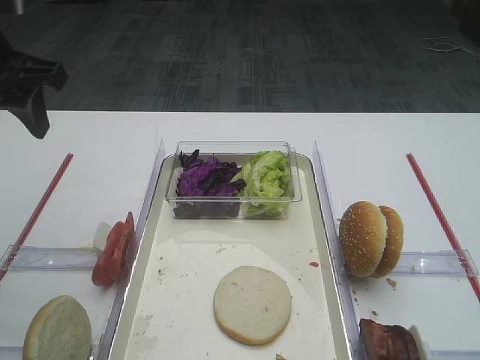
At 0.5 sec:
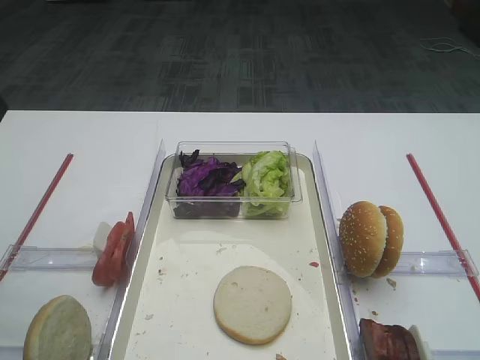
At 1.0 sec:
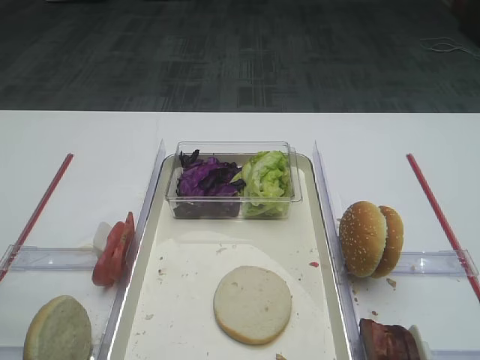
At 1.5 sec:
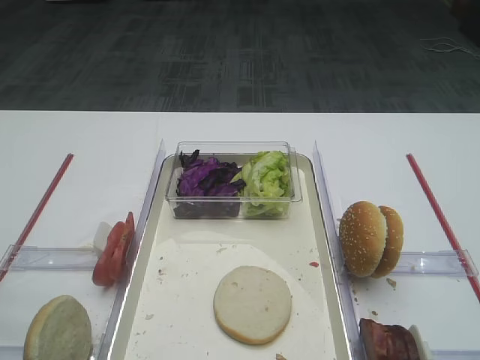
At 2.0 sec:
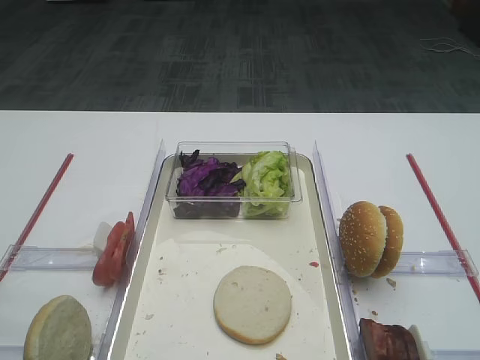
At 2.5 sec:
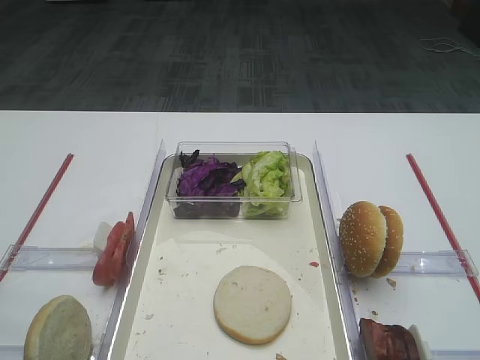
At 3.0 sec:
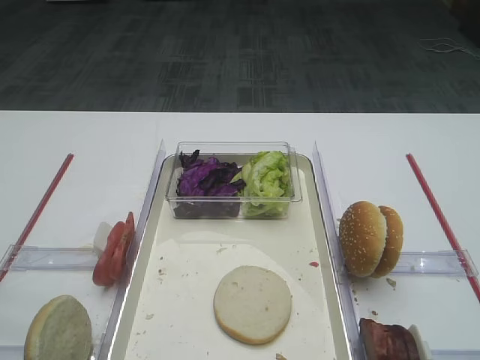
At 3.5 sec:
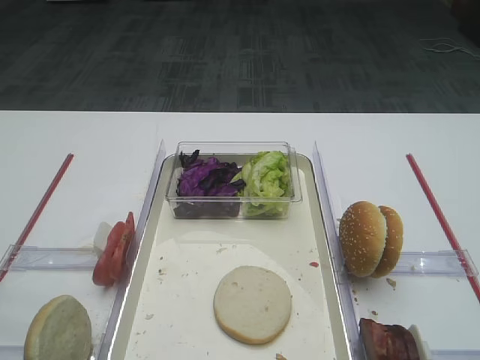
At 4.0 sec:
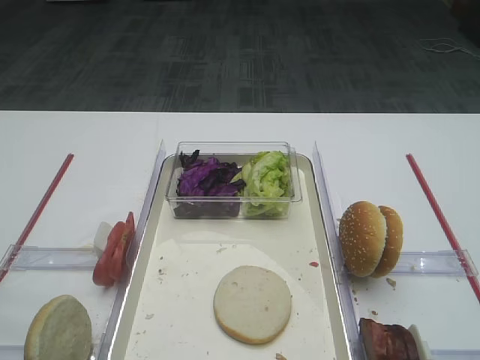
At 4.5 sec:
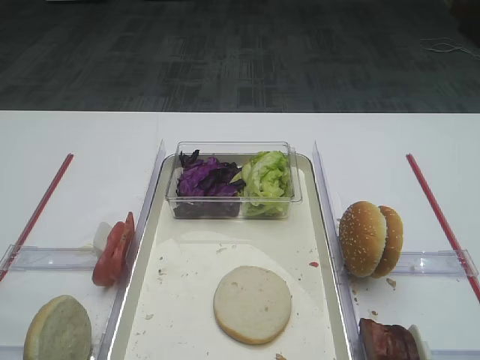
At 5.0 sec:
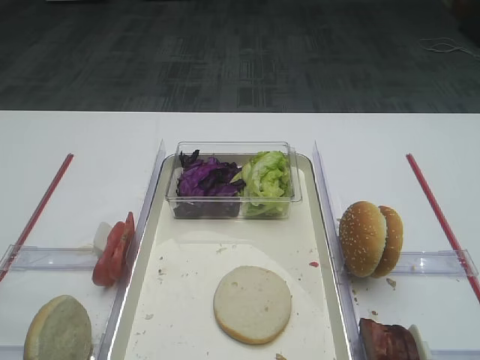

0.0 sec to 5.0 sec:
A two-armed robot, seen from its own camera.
0.0 sec to 2.5 sec: The left gripper is displaced backward by roughly 30 cm.

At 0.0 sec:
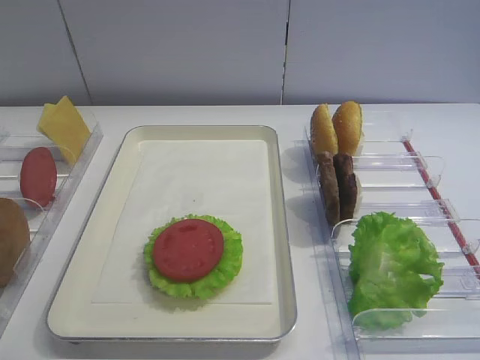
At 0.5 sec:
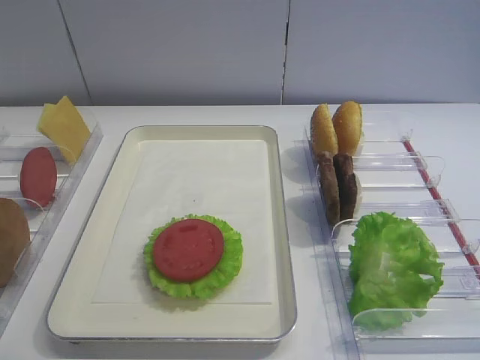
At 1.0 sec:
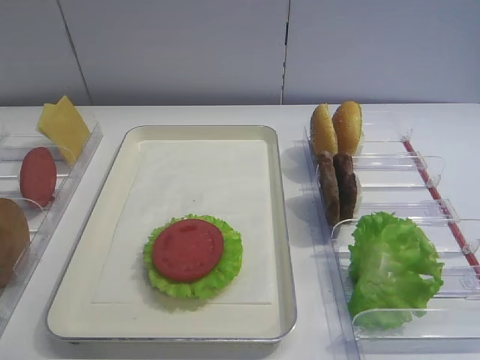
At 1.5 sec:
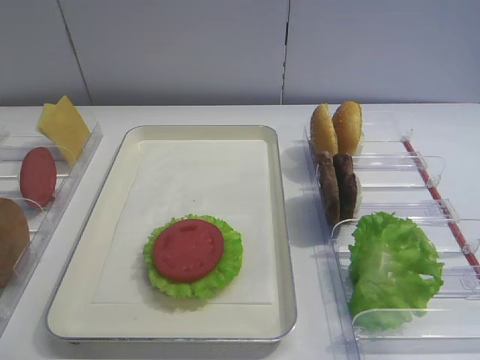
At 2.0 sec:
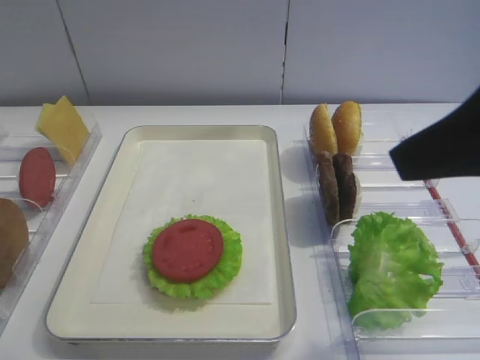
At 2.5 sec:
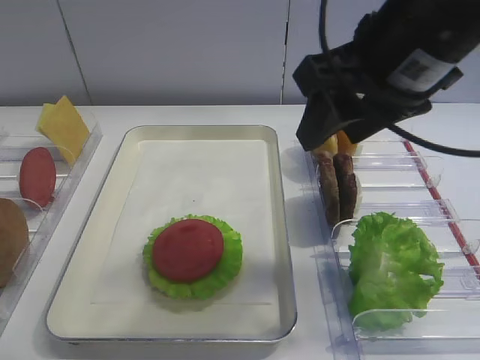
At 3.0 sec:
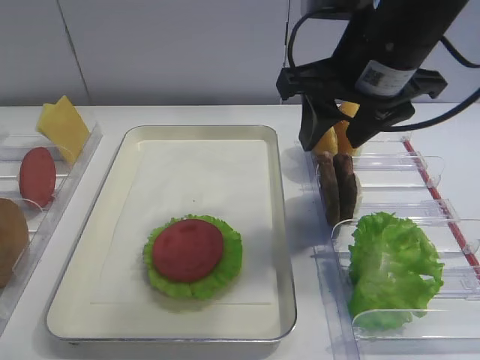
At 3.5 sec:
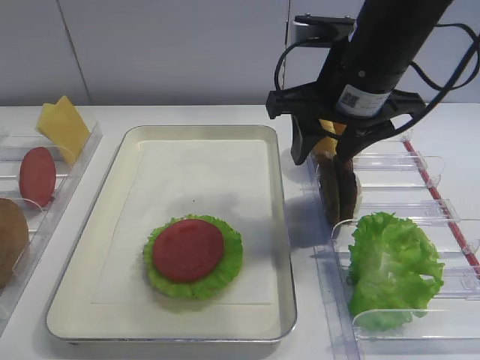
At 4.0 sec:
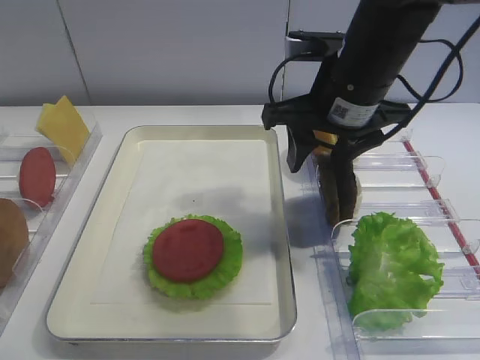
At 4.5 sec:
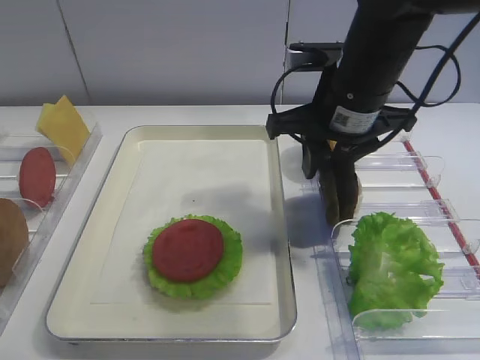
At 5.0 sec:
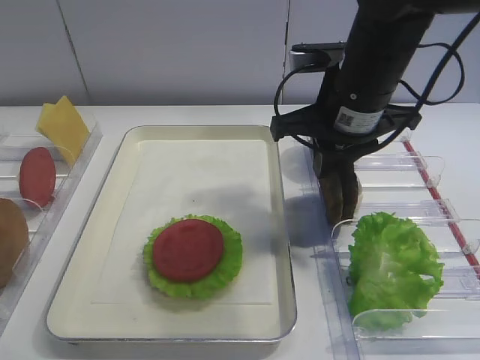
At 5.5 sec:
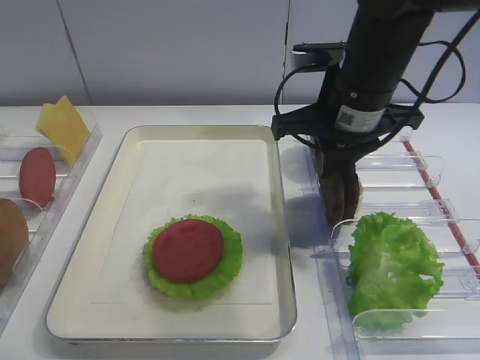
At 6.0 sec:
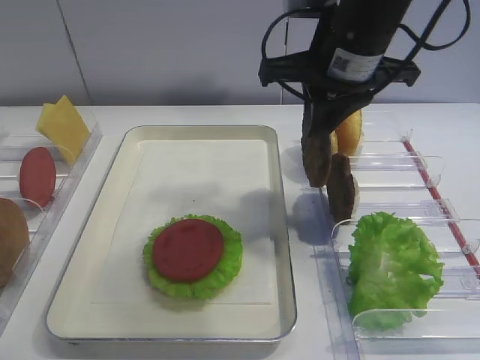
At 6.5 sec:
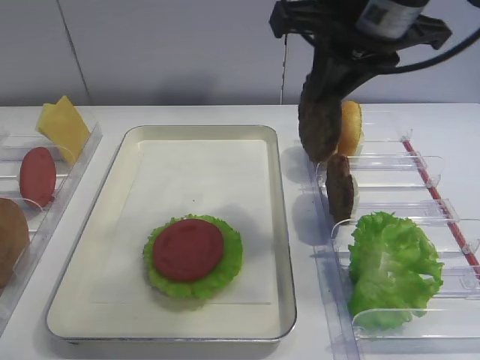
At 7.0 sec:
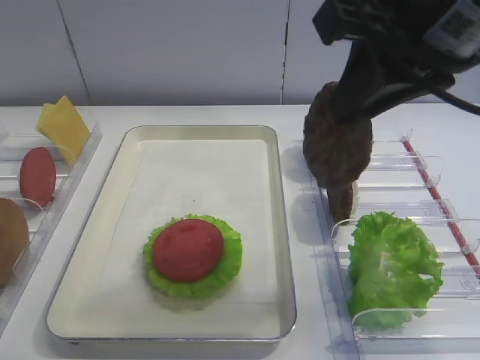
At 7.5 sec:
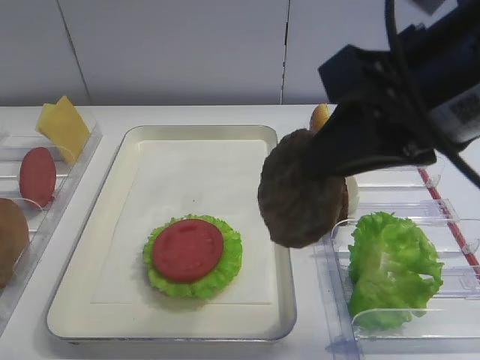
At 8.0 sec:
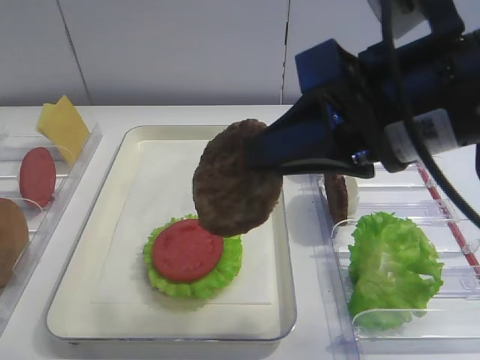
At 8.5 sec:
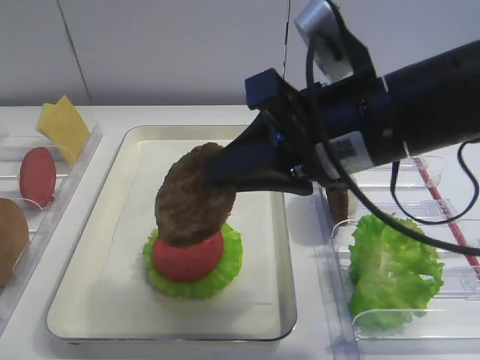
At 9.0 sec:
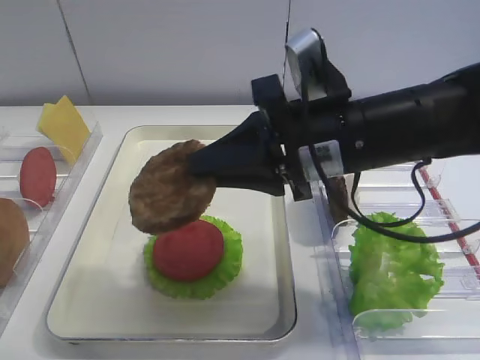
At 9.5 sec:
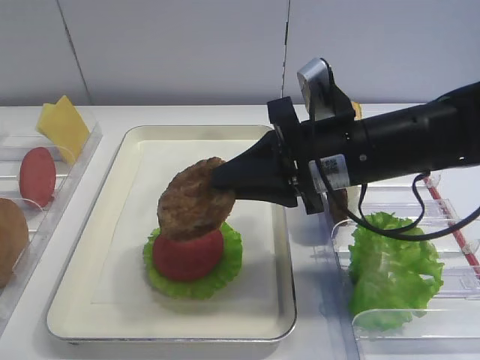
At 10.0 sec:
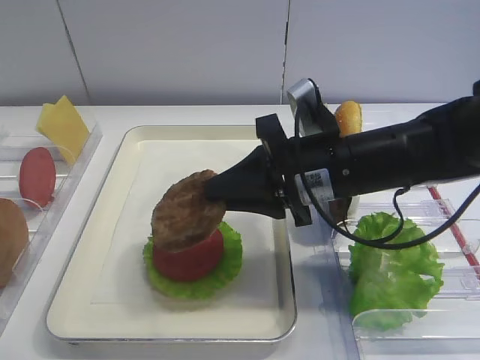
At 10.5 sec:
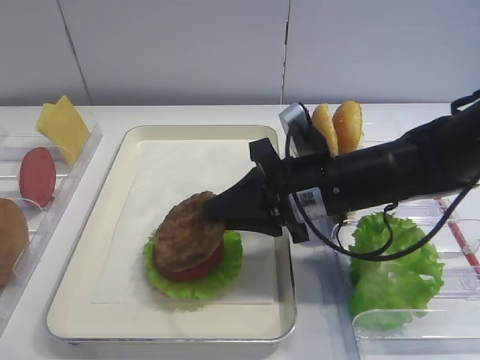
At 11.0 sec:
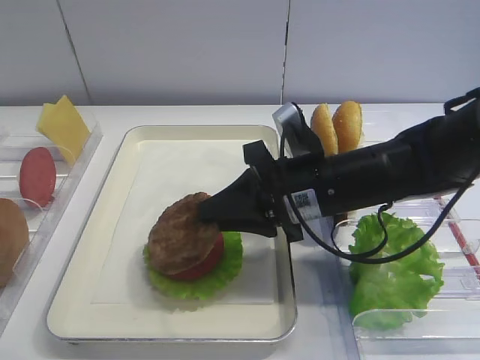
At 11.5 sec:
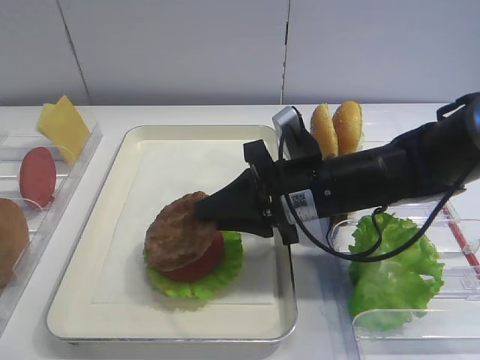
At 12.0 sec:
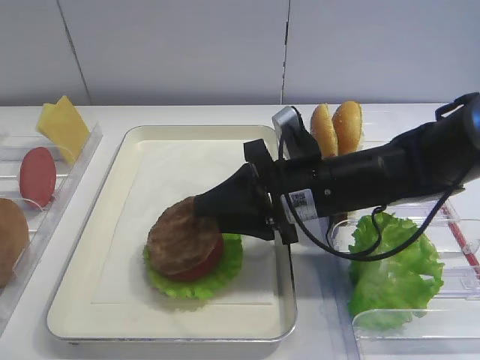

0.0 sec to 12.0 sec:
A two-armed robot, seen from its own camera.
Step, 0.0 sec to 6.0 sec: Pick up the cutlet with the right gripper.
2.0 sec to 4.0 sec: The right gripper goes roughly 20 cm forward, downward and to the left.
4.0 sec to 6.0 sec: The right gripper closes up.
6.0 sec to 8.0 sec: The right gripper travels backward by roughly 15 cm.
8.0 sec to 10.0 sec: The right gripper is displaced downward and forward by about 15 cm.
10.0 sec to 12.0 sec: The right gripper opens its fingers.

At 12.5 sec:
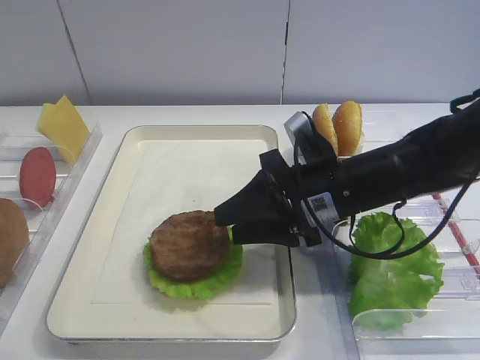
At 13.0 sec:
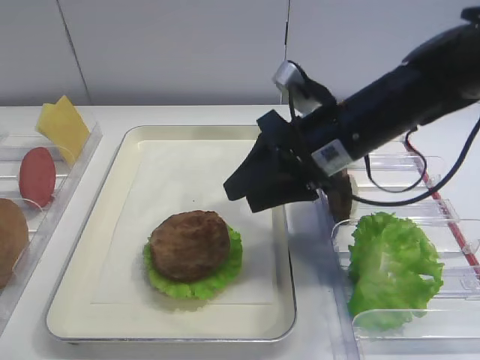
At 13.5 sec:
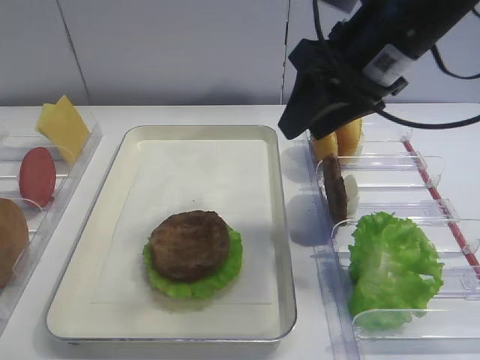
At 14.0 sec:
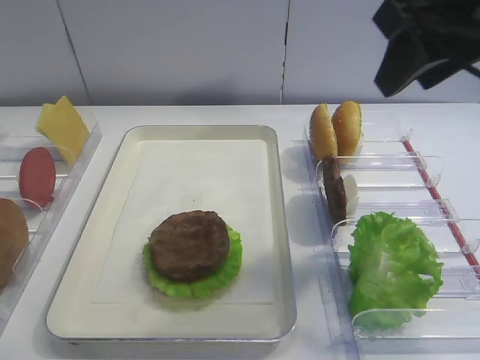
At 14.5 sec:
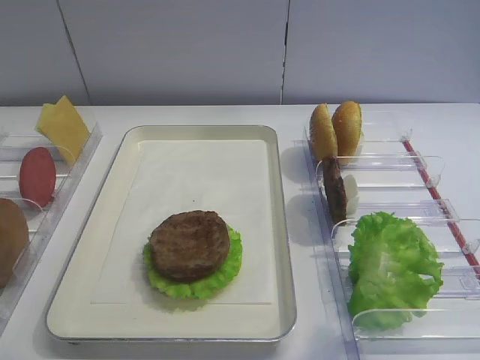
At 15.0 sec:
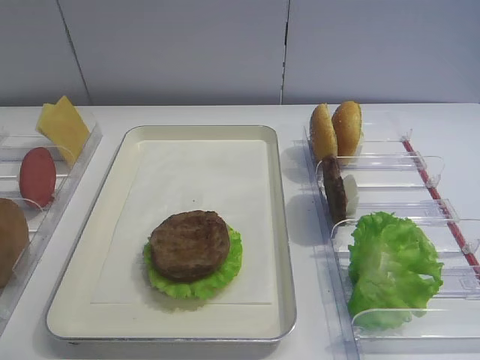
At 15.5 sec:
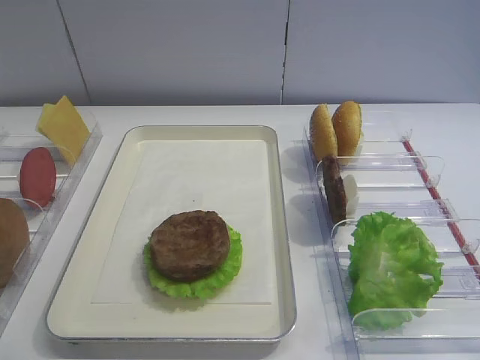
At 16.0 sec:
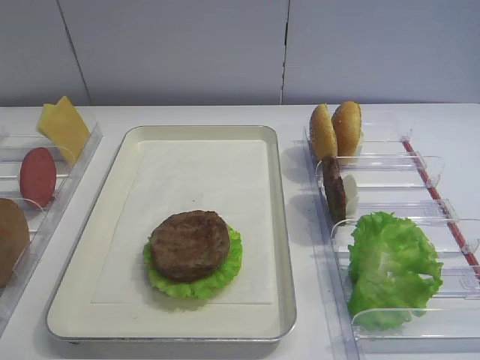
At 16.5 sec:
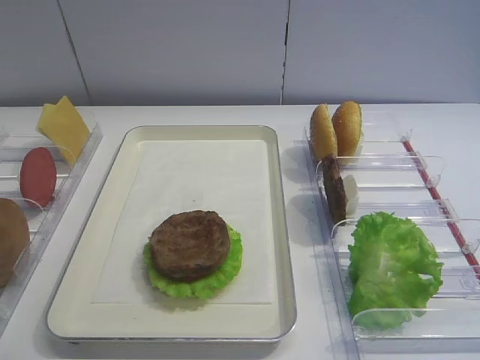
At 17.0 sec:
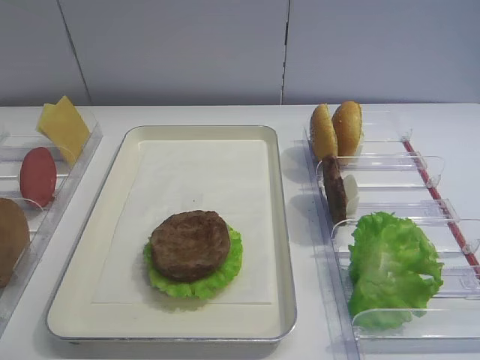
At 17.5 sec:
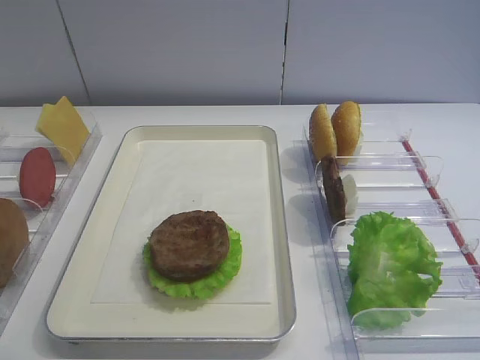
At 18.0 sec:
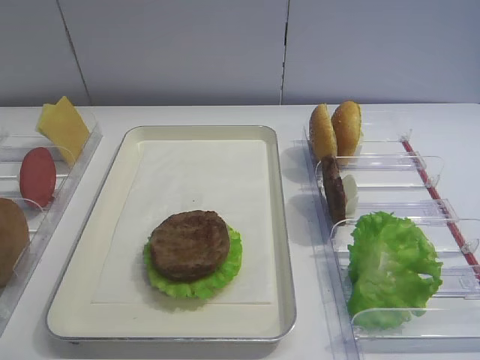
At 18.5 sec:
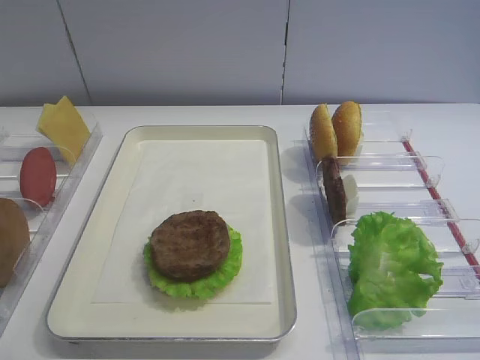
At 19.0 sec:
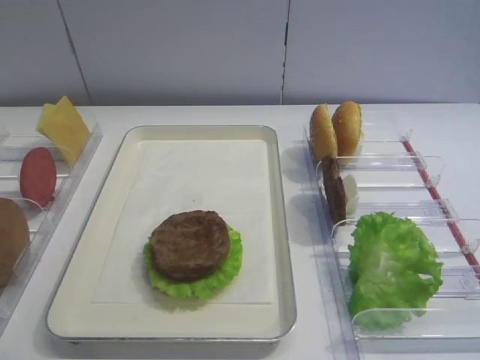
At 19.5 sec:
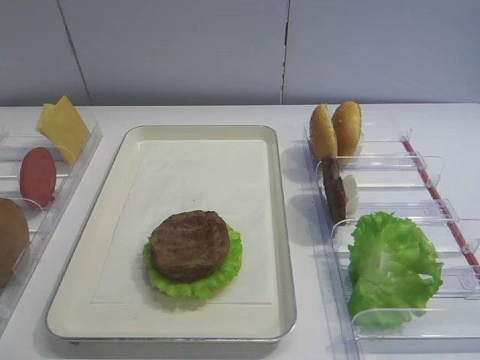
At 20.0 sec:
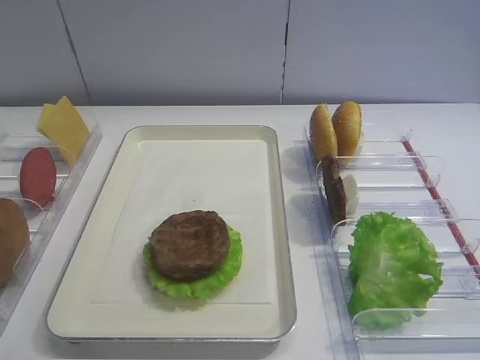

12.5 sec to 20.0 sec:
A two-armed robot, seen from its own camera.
12.5 sec to 14.5 sec: The right gripper is displaced upward, backward and to the right by approximately 30 cm.

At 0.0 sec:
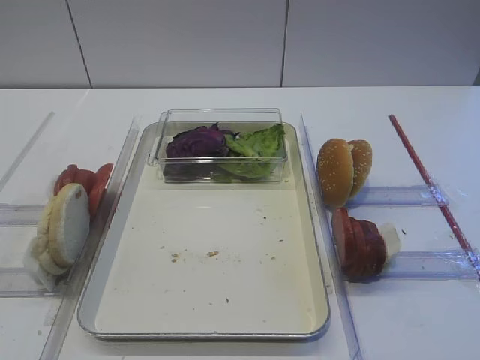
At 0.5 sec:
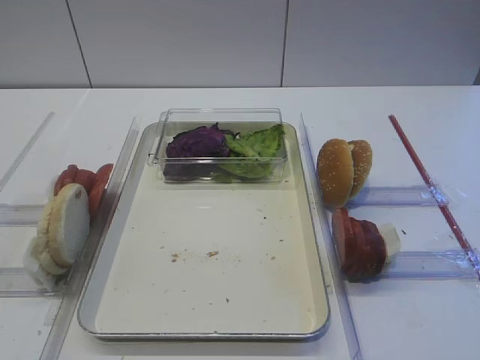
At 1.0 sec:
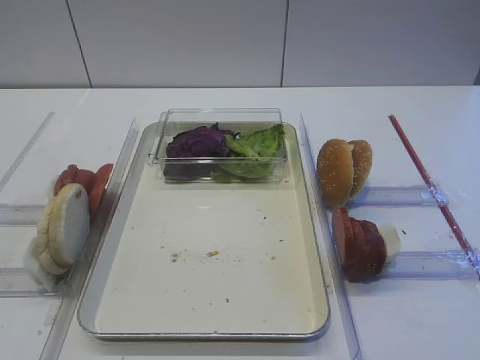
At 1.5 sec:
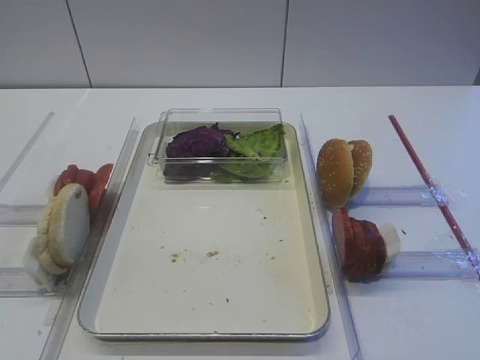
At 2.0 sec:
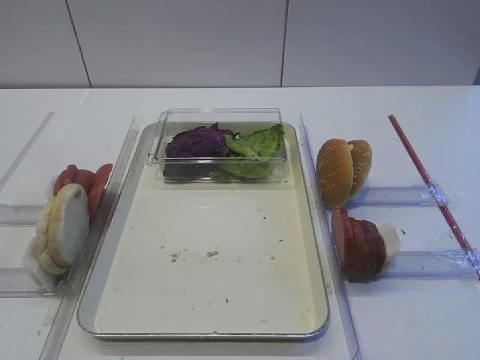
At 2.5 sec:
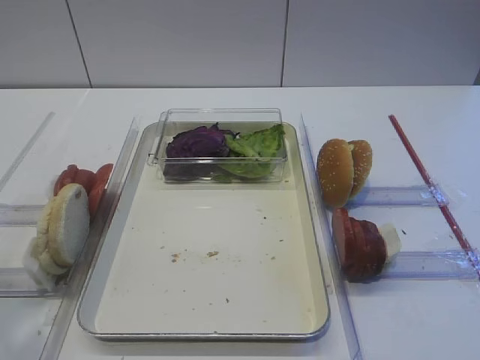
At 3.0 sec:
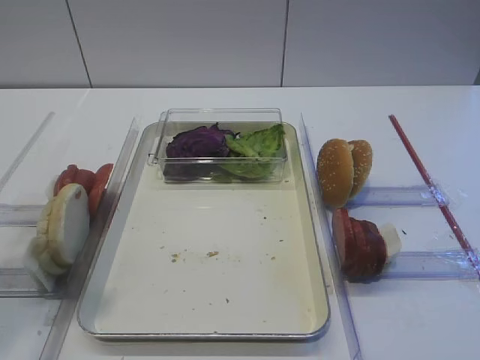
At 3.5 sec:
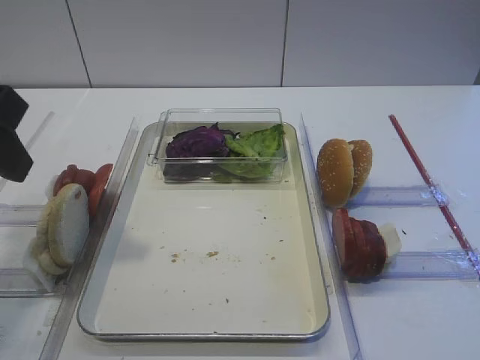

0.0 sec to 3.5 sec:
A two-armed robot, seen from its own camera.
2.0 sec to 3.5 sec: The left gripper heads forward, covering about 20 cm.
